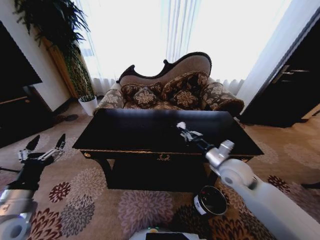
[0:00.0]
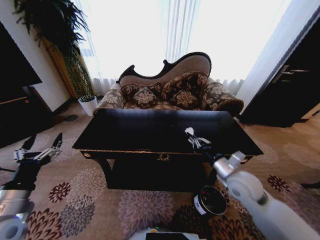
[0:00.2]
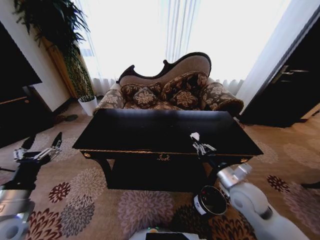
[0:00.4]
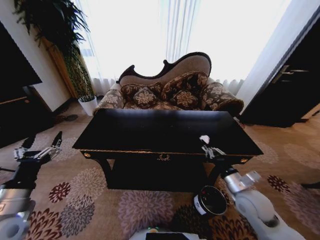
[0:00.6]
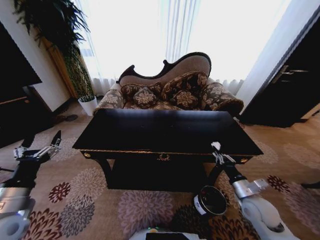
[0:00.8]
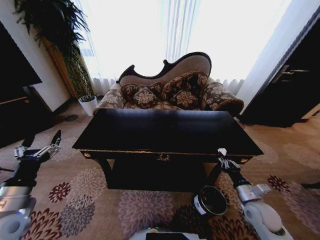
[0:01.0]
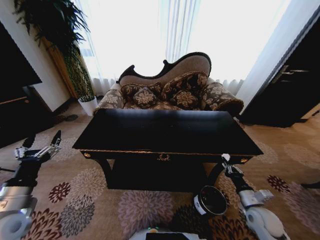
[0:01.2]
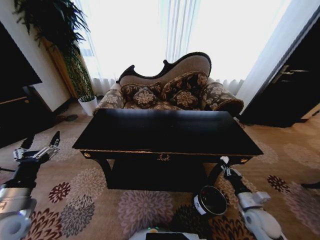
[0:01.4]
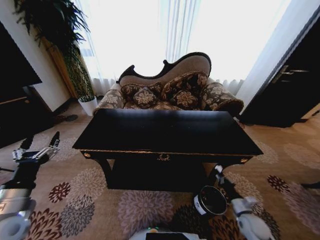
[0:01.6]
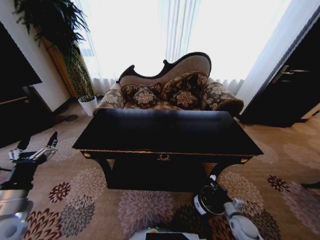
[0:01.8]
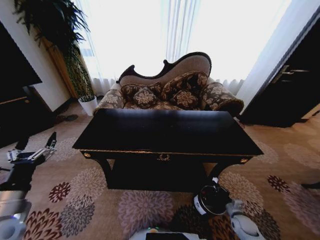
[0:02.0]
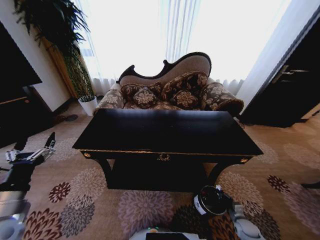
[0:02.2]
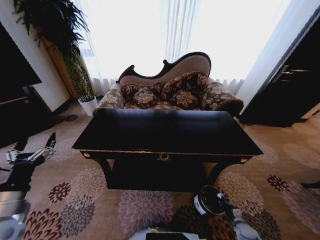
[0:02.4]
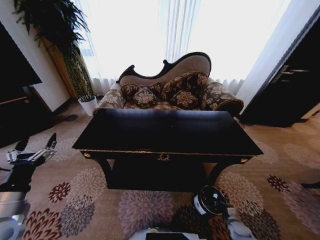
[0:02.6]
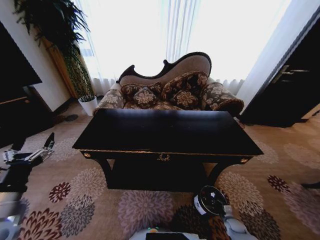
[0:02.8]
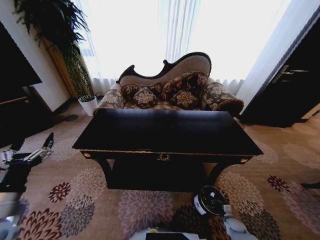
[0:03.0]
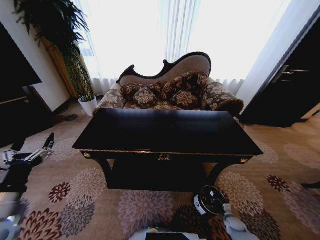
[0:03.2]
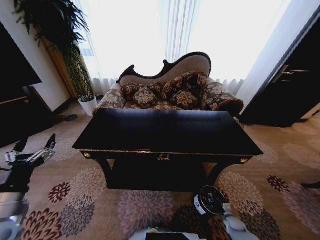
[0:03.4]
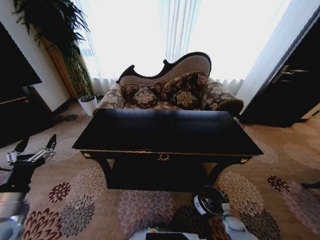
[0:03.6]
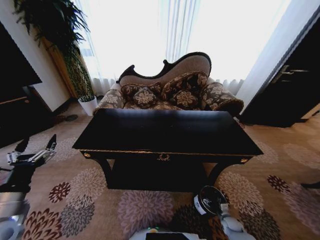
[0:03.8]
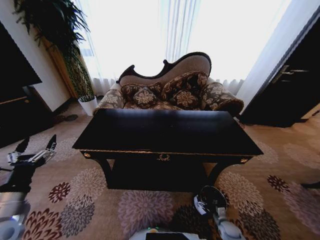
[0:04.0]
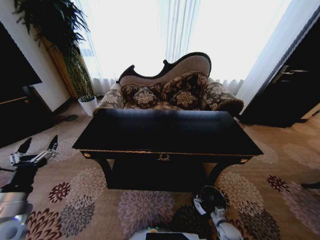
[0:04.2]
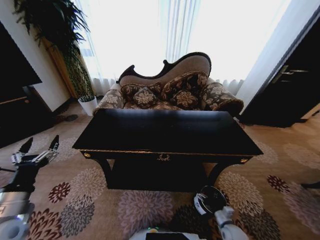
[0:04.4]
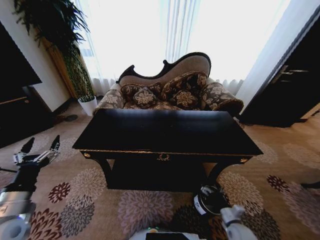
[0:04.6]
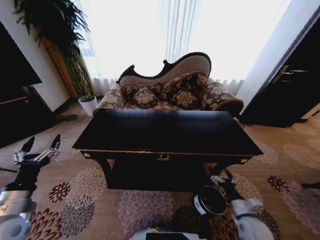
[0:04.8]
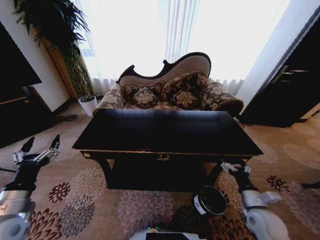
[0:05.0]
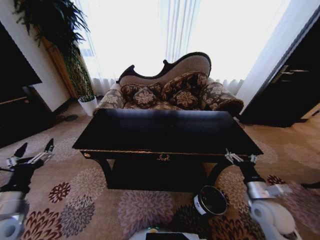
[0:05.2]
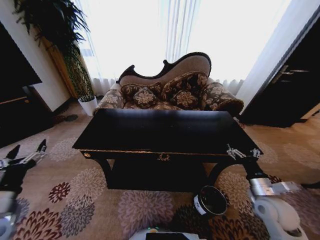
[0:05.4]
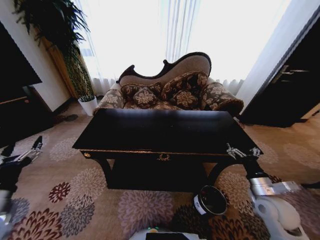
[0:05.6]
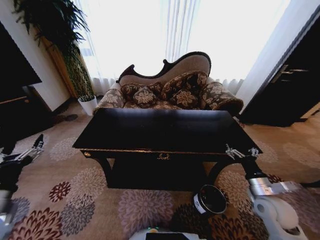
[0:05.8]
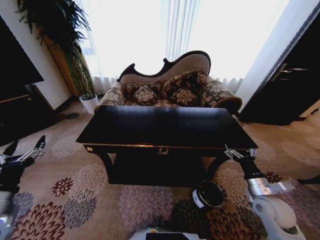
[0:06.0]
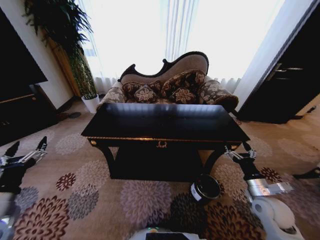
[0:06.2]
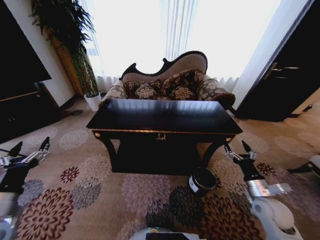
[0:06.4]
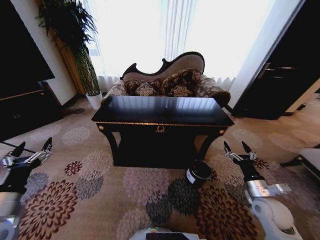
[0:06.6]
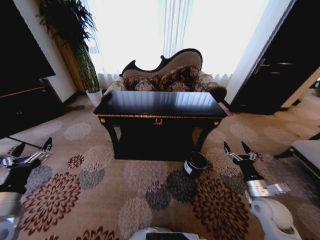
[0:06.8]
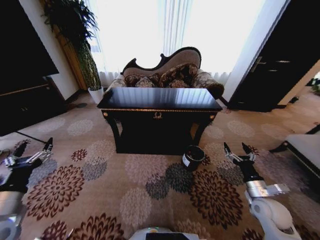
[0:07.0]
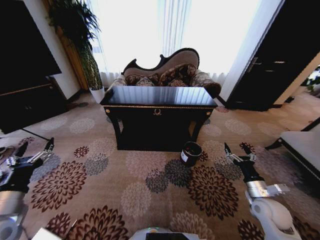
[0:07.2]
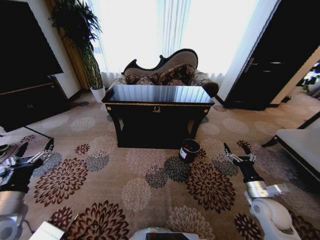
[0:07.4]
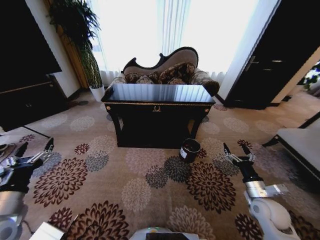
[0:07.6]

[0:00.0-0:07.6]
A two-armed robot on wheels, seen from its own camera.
Task of the whole recording: Move to the front of the table and place the trash on the table into the trash bin.
0:00.0 to 0:01.6: The right gripper heads downward, to the right and backward, covering roughly 30 cm.
0:01.6 to 0:03.0: The right gripper goes approximately 15 cm downward.
0:03.0 to 0:04.6: The right gripper shifts roughly 20 cm upward and to the left, and opens up.
0:04.6 to 0:06.0: The right gripper shifts about 15 cm upward.

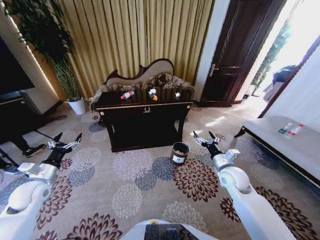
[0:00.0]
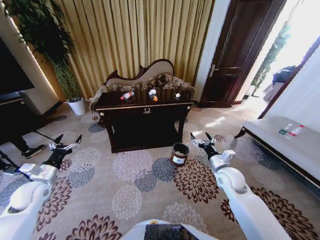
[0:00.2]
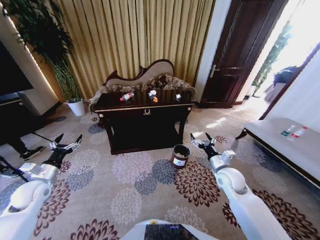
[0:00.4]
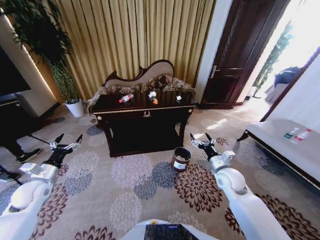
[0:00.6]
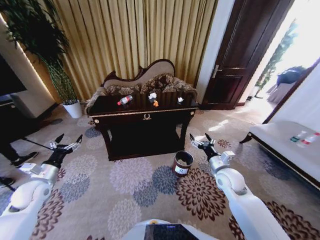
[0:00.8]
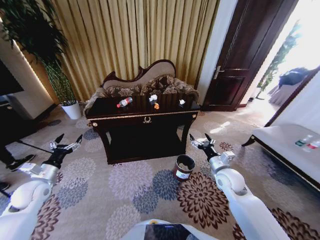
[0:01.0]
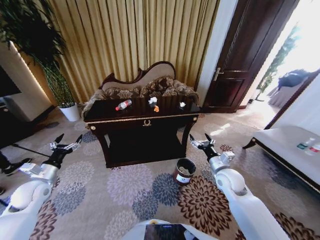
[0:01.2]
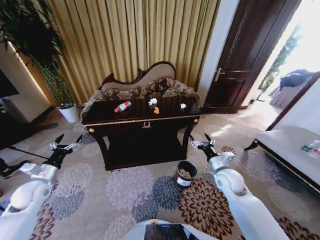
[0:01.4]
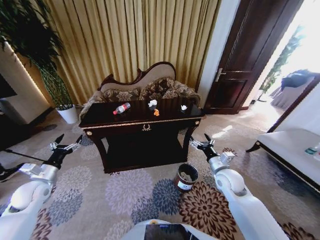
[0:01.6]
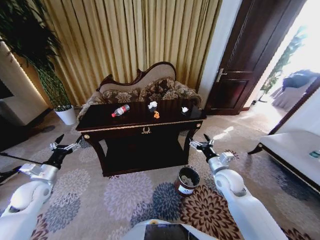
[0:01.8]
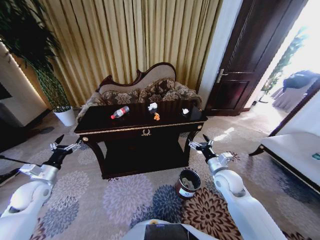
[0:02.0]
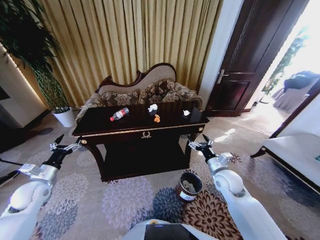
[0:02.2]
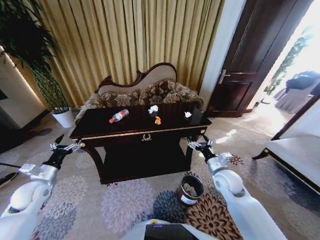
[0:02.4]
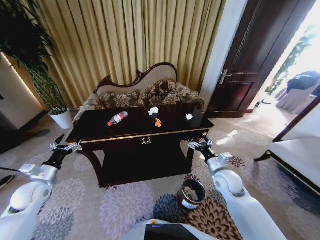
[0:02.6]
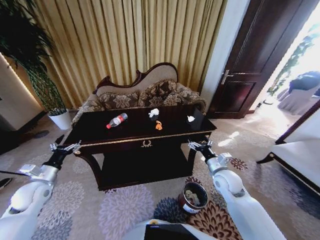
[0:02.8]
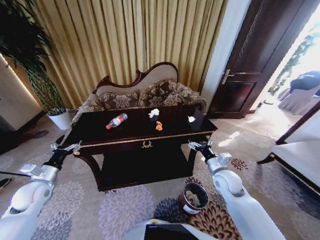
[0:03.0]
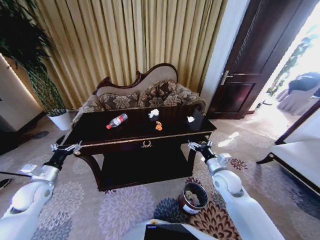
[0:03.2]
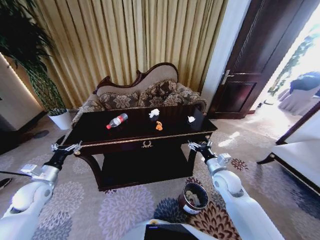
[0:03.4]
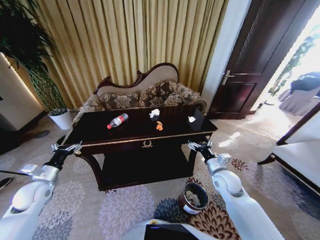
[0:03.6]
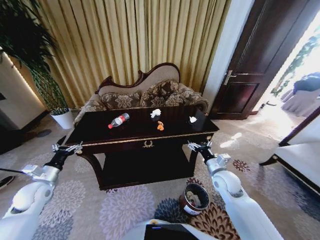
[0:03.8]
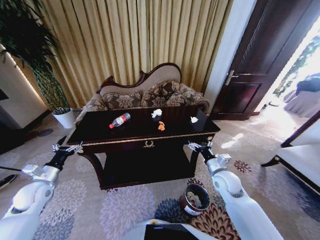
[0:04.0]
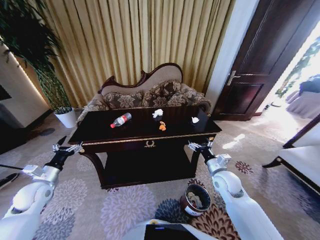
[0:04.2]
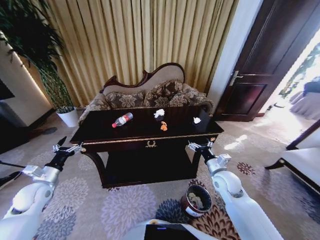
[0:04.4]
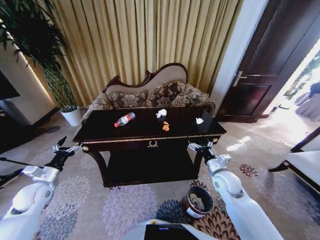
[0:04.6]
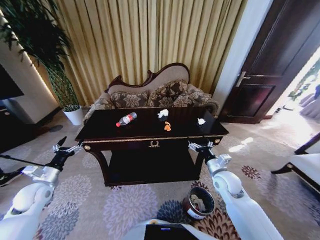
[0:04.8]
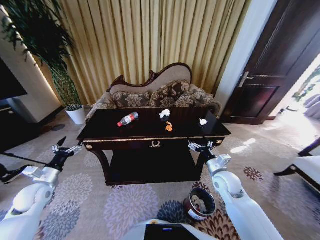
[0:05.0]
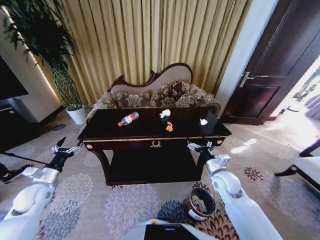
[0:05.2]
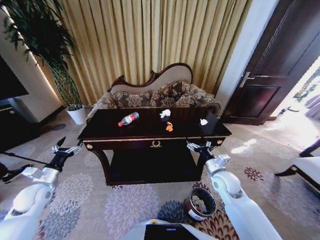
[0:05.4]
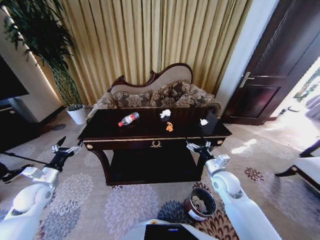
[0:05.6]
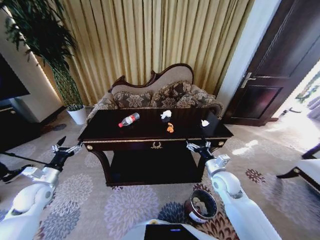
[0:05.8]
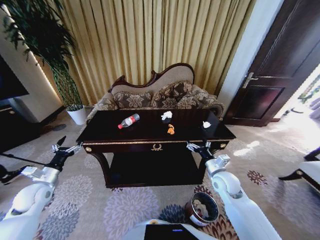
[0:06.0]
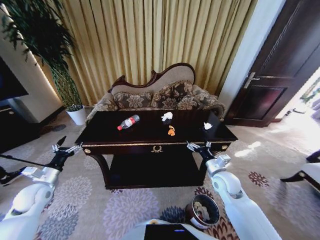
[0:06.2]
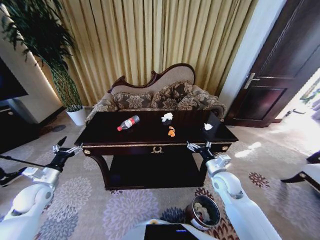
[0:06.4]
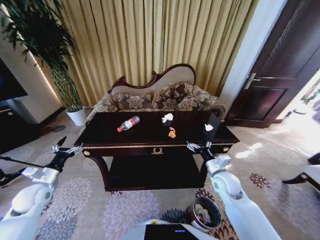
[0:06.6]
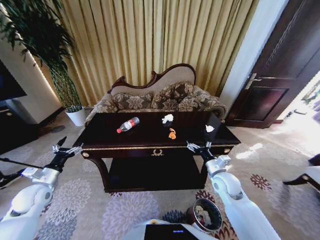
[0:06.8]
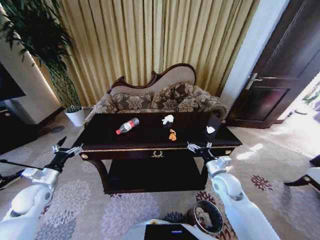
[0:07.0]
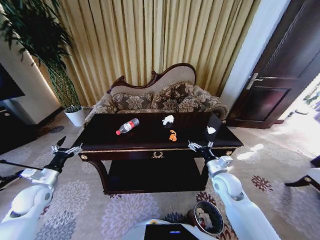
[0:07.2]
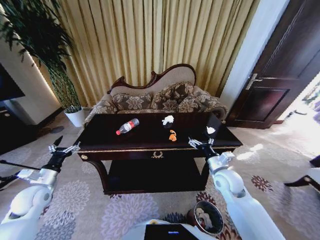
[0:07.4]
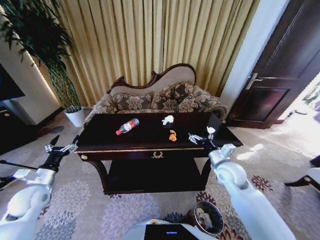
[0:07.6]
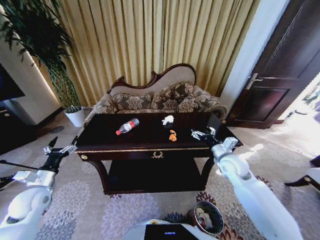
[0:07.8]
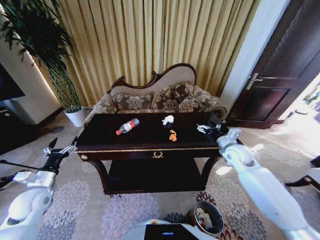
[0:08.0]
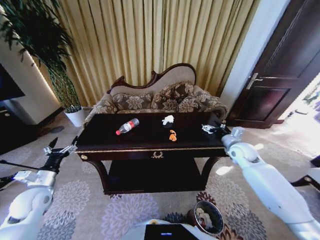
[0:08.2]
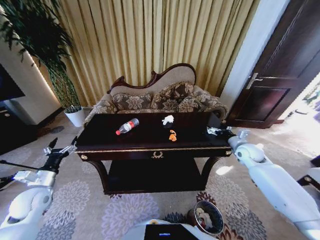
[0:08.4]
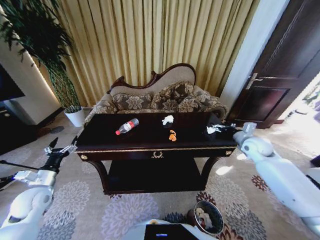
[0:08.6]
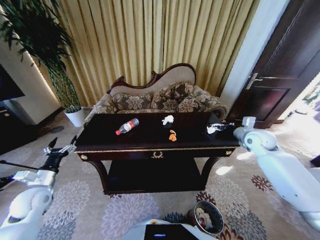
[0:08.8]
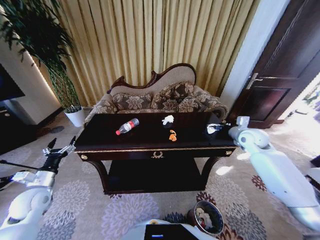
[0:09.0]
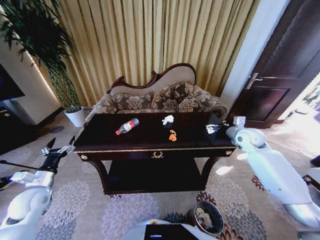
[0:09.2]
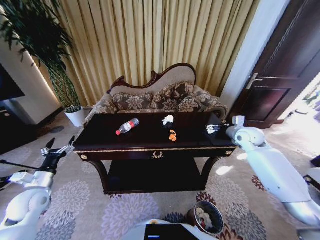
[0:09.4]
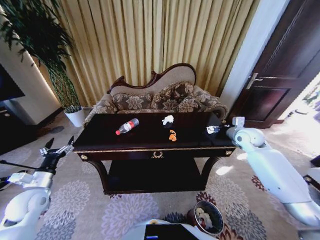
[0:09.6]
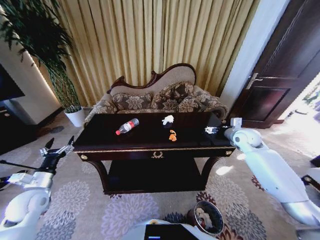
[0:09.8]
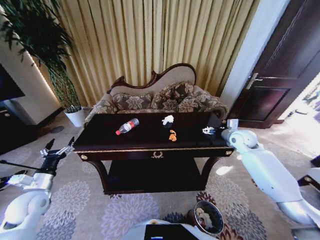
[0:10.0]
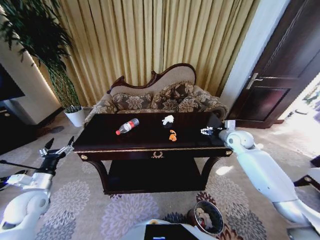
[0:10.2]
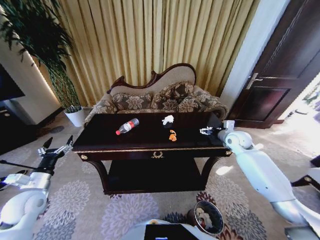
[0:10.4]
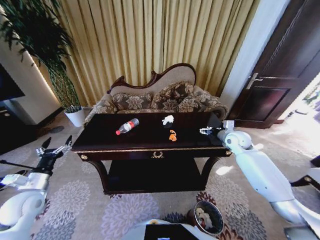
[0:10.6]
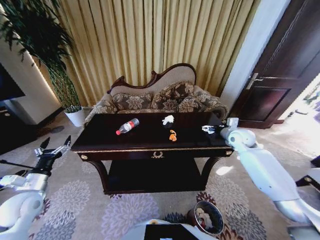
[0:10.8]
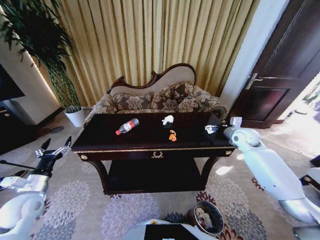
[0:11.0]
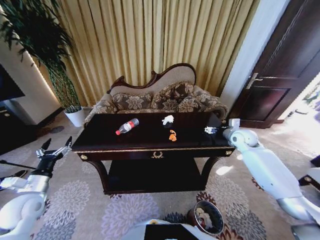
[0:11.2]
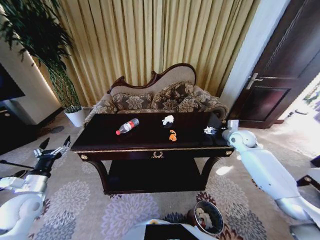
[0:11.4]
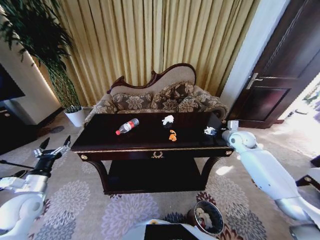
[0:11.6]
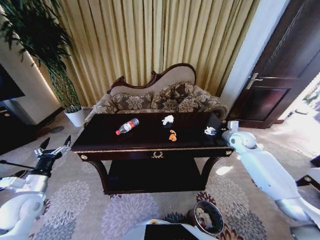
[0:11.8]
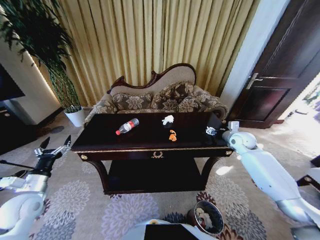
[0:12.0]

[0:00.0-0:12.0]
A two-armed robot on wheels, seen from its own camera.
Task of the whole recording: Move to the front of the table and place the trash on the table into the trash bin.
0:06.0 to 0:07.6: The right gripper changes place by roughly 5 cm.
0:07.6 to 0:09.0: The right gripper shifts roughly 20 cm to the right, forward and upward.
0:09.0 to 0:10.4: The right gripper moves approximately 5 cm.
0:10.4 to 0:12.0: There are only small adjustments of the grippers.

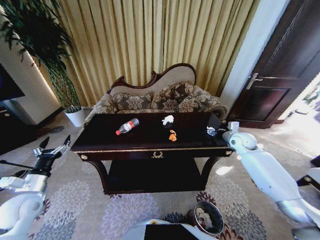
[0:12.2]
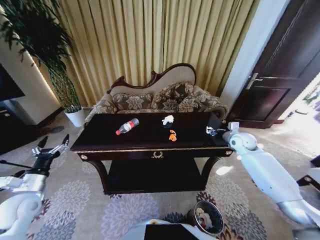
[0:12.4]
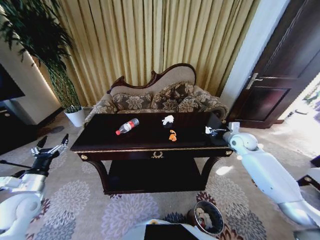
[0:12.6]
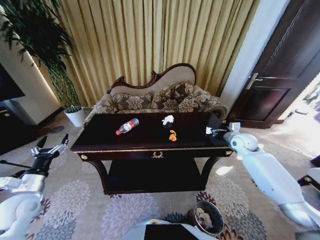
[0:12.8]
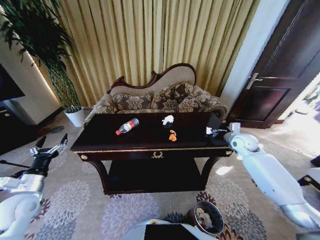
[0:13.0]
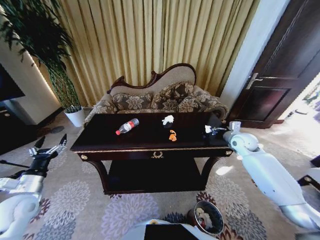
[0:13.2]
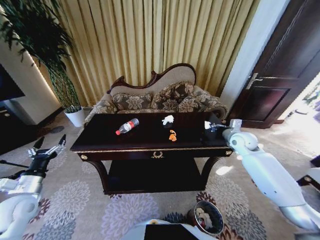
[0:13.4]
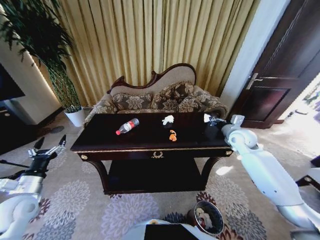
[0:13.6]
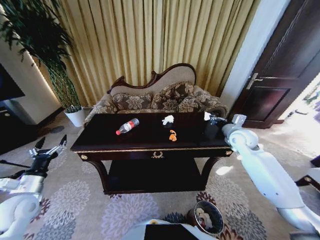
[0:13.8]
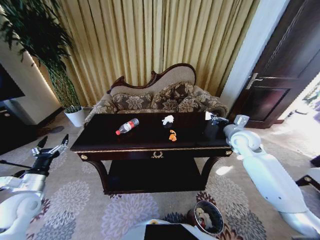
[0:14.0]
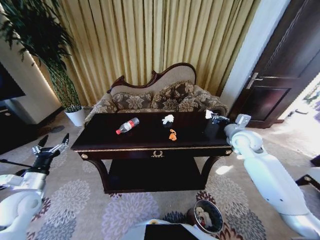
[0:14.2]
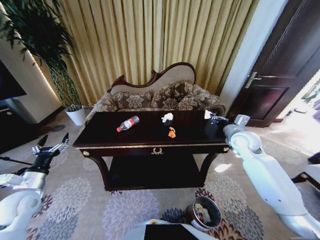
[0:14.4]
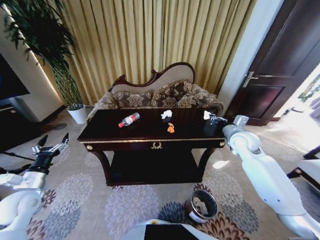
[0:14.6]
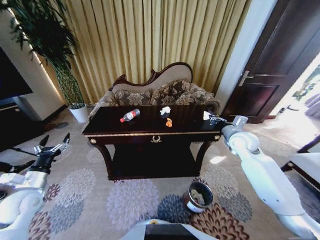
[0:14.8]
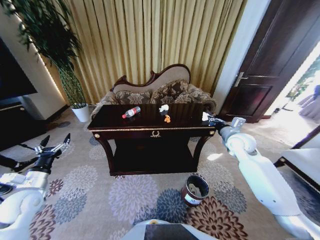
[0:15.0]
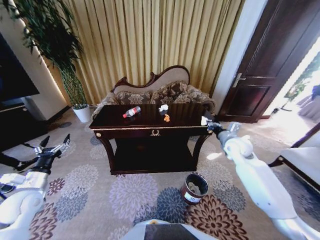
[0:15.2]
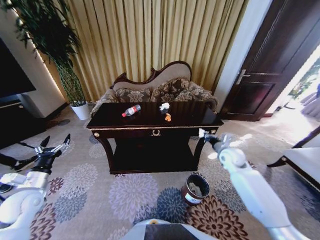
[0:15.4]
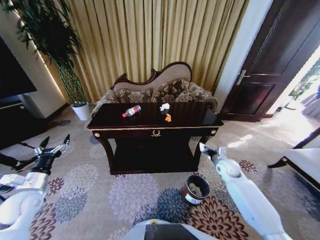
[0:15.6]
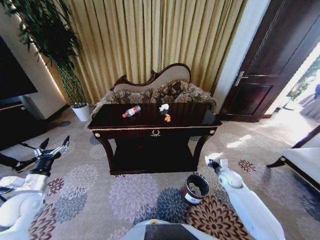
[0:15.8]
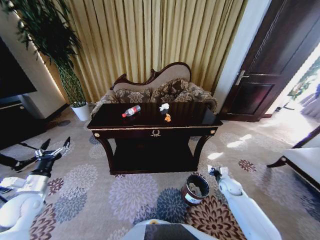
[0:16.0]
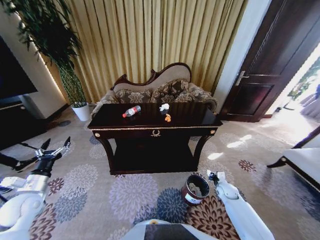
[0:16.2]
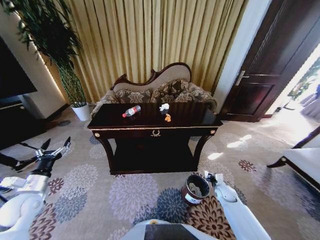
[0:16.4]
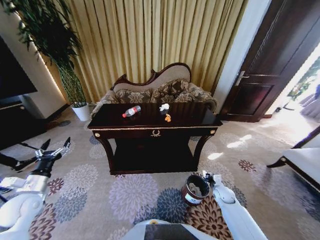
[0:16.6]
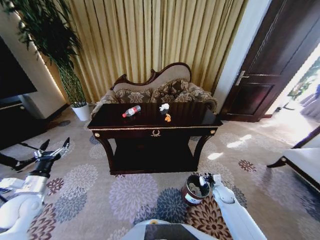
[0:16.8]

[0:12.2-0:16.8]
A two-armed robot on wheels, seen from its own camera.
Task of the whole recording: Move to the front of the table and place the trash on the table into the trash bin.
0:12.2 to 0:13.8: The right gripper shifts by about 5 cm, and closes up.
0:15.2 to 0:16.8: The right gripper travels downward and backward by approximately 30 cm.
